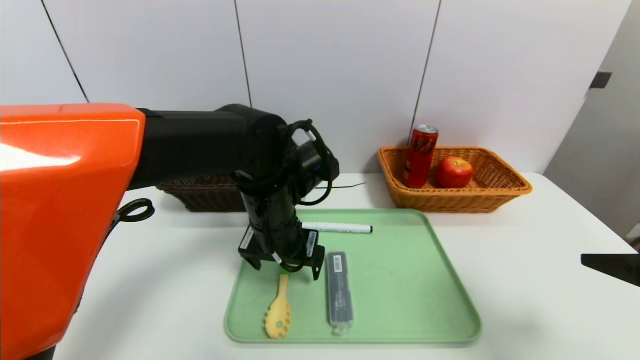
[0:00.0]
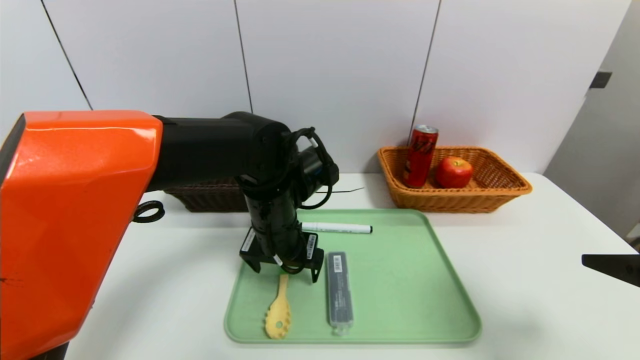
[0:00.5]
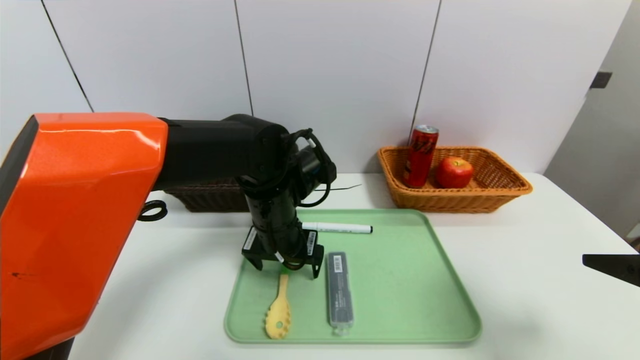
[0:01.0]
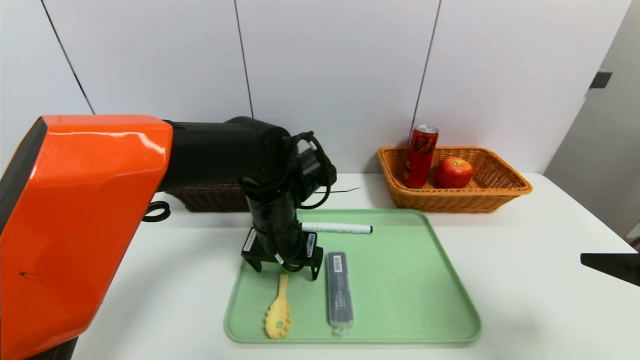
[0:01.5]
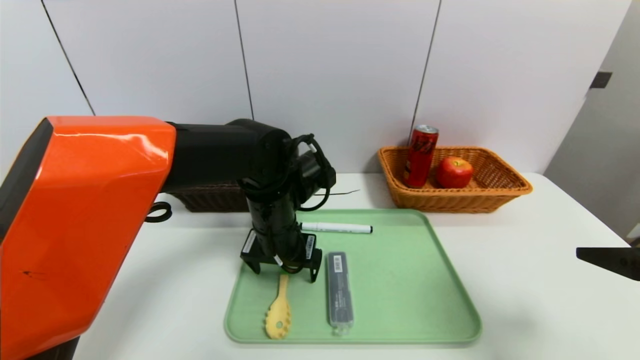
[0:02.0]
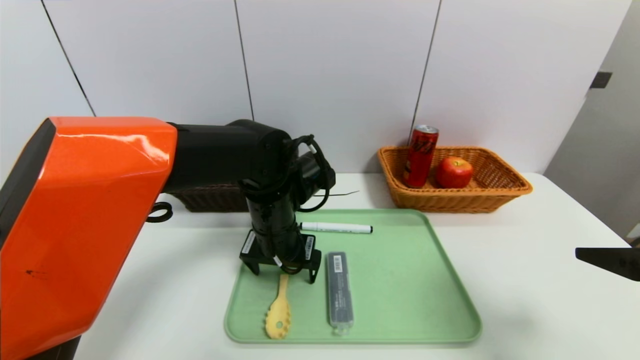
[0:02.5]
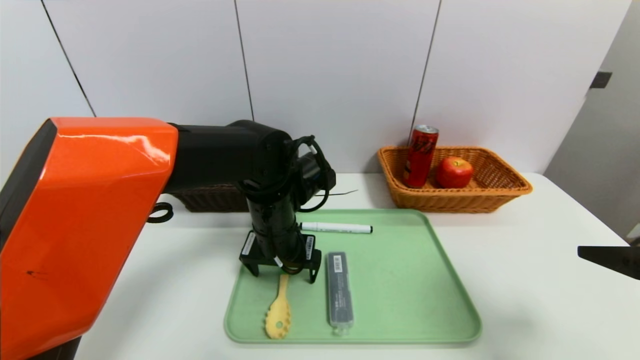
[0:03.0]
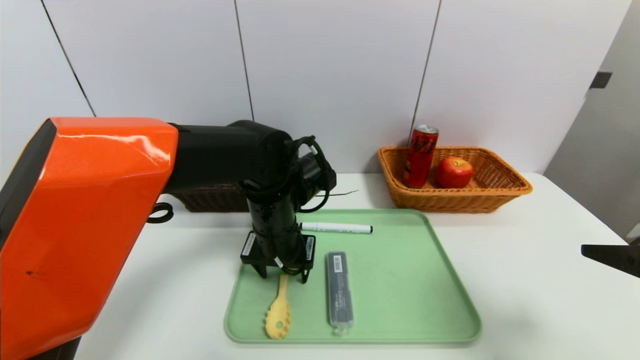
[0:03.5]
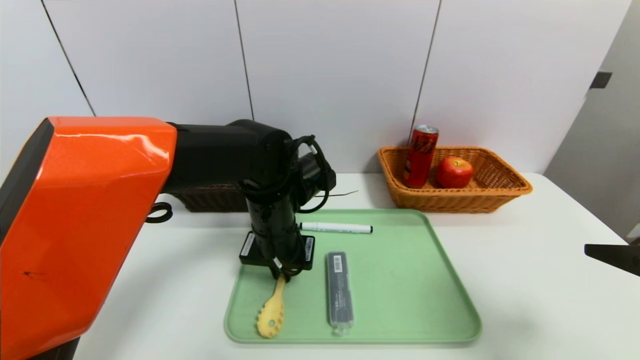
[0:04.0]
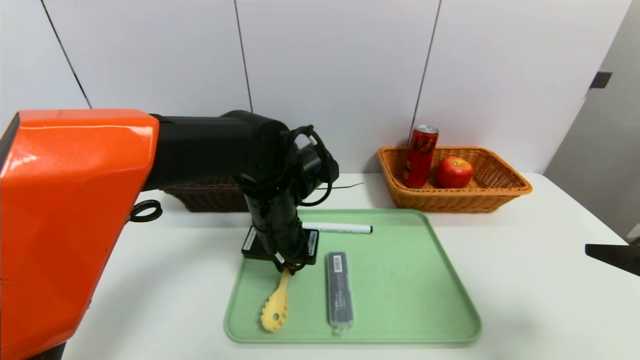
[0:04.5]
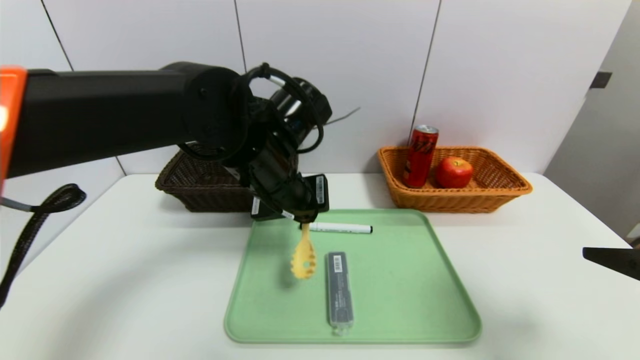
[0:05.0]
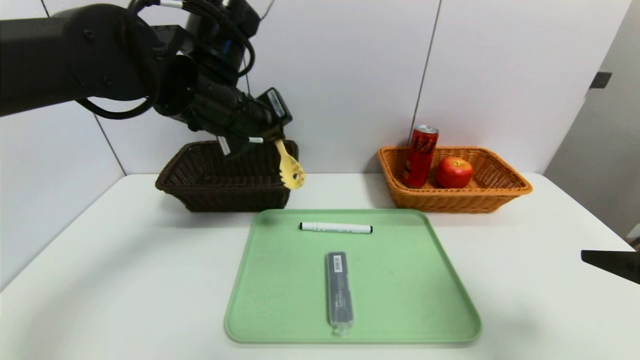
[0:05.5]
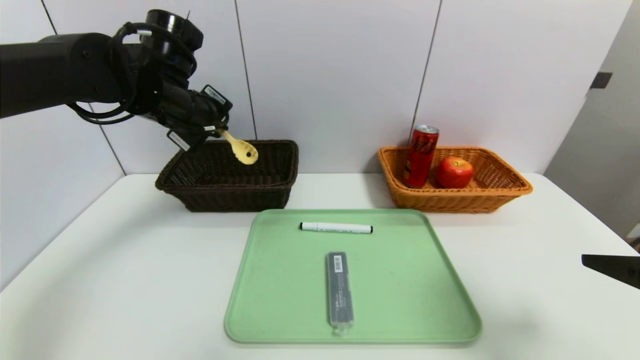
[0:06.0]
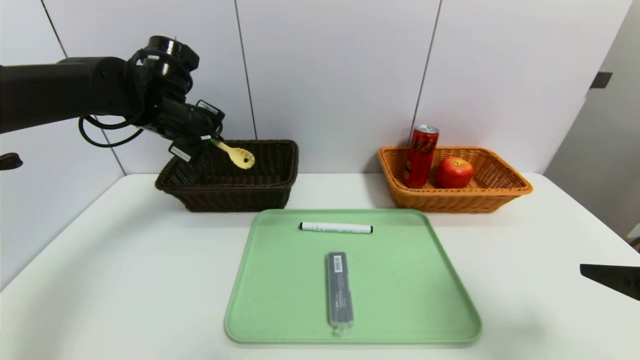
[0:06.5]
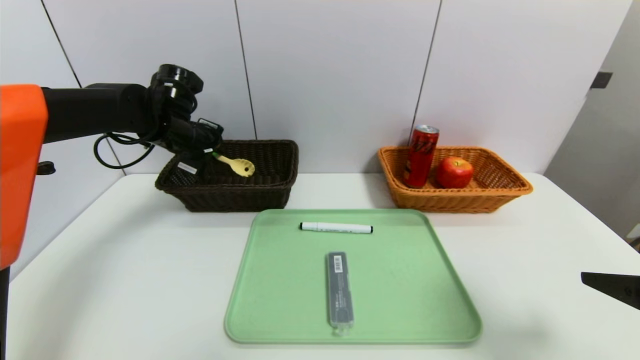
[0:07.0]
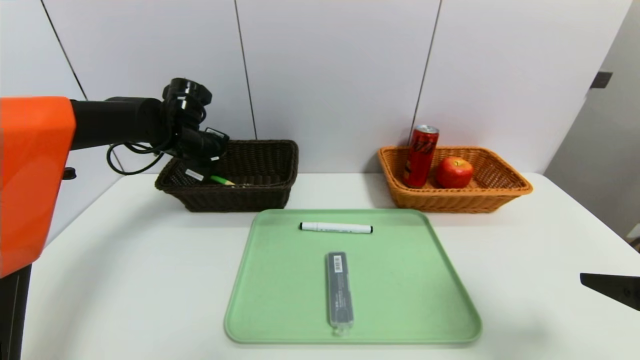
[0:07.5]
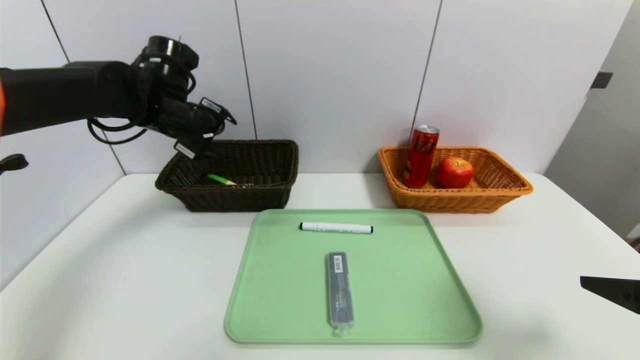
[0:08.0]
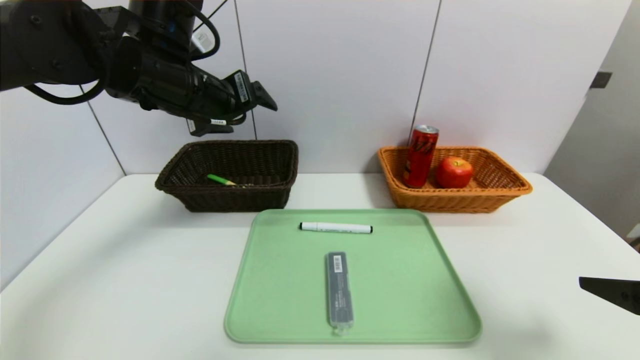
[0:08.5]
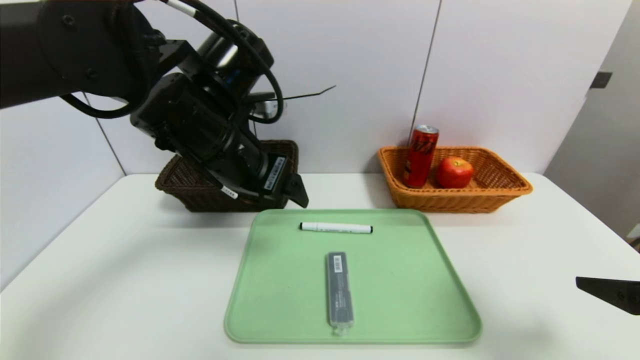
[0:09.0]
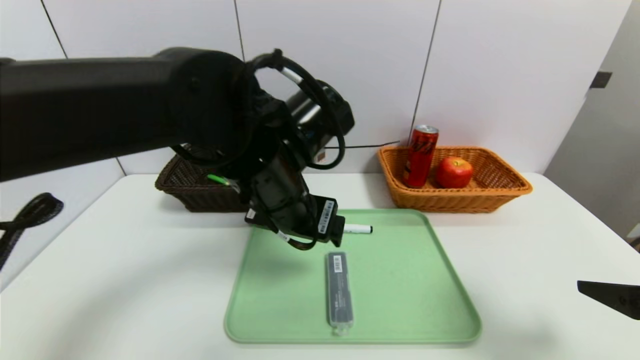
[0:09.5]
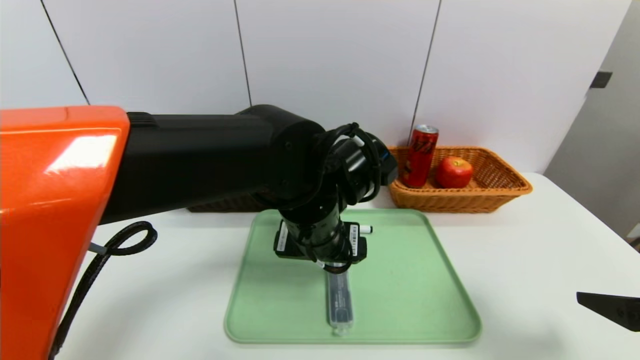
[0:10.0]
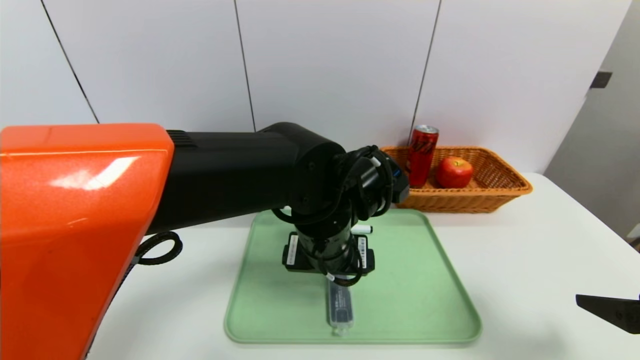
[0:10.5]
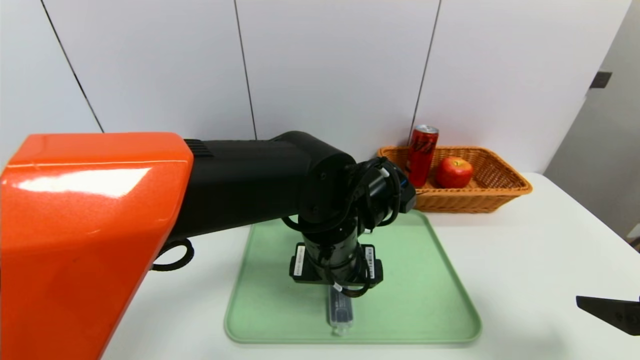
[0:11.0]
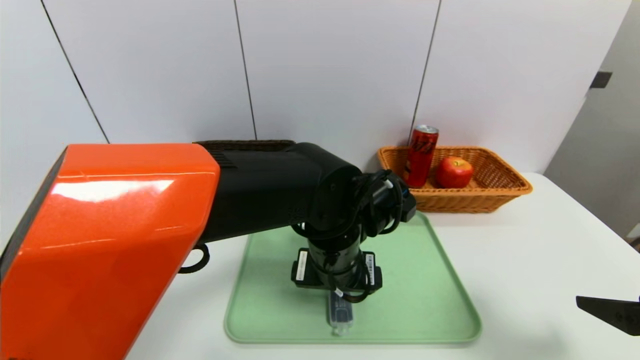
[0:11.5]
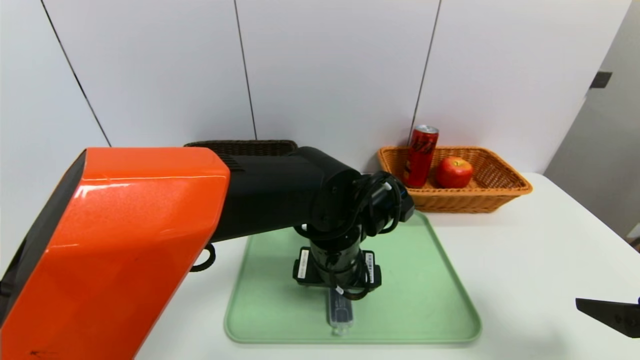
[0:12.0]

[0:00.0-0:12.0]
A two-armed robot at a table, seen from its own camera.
Task of the whole recording: place the food in the right basket with the right gripper, and place the non food items in the left basket with the left gripper.
Step, 0:00.0 to 0:08.0: Grasp the back scratcher and put it in the left basket.
0:00.0 to 0:02.0: The grippers stay close to where they were, moving slightly.
0:02.0 to 0:04.0: The left gripper closes.
0:04.0 to 0:06.0: The left gripper travels to the left, upward and forward by roughly 20 cm.
0:06.0 to 0:08.0: The left gripper goes downward and returns, roughly 10 cm each way, and opens up.
0:08.0 to 0:10.0: The left gripper shifts approximately 25 cm to the right and backward.
0:10.0 to 0:12.0: The left gripper changes place by roughly 5 cm.

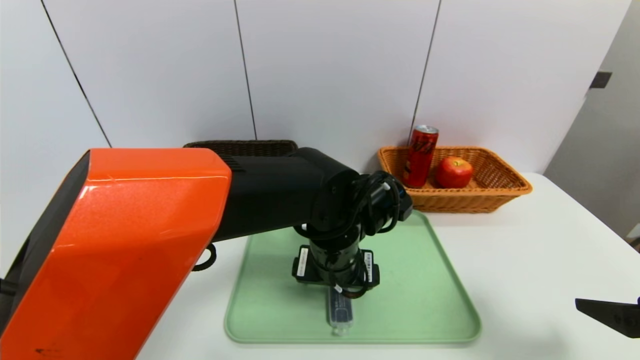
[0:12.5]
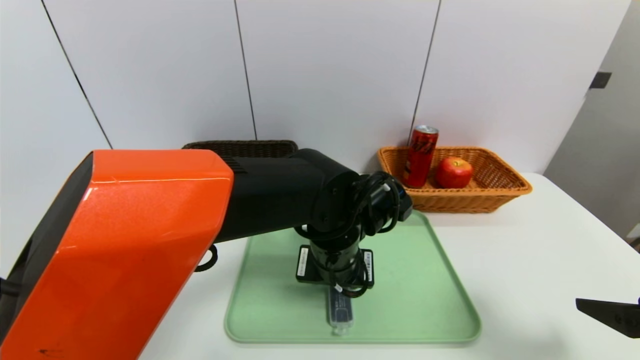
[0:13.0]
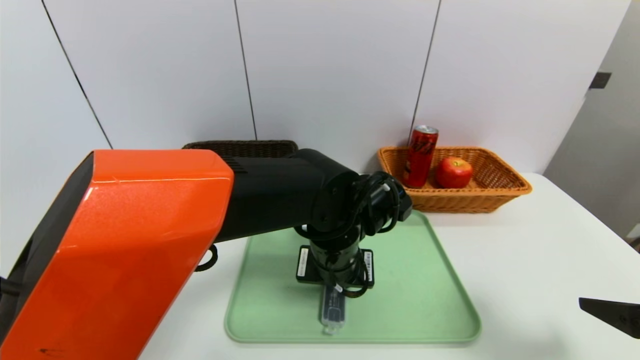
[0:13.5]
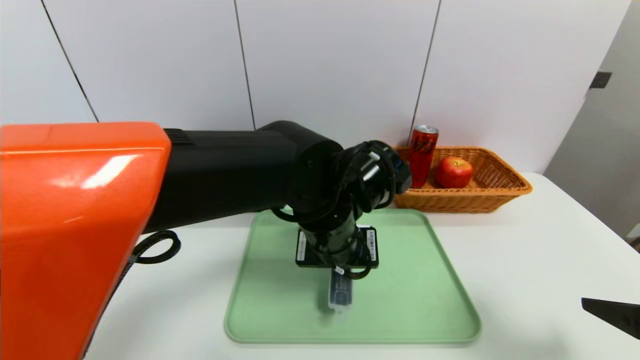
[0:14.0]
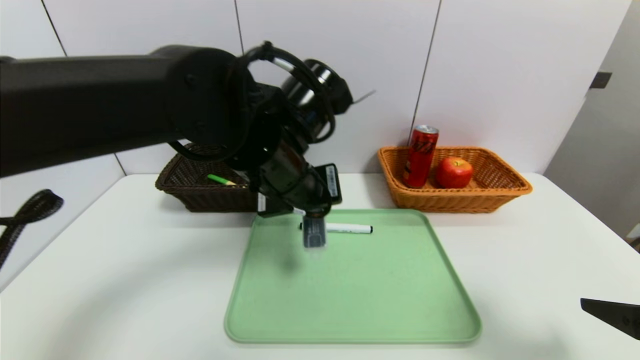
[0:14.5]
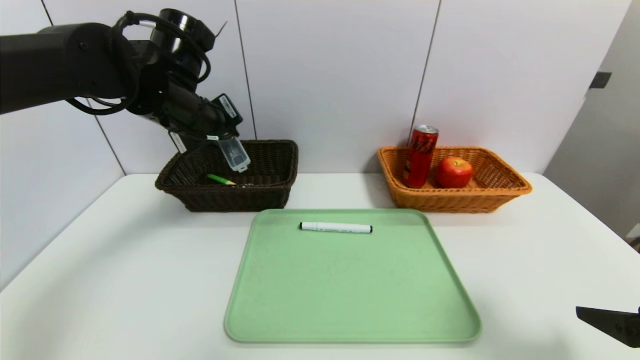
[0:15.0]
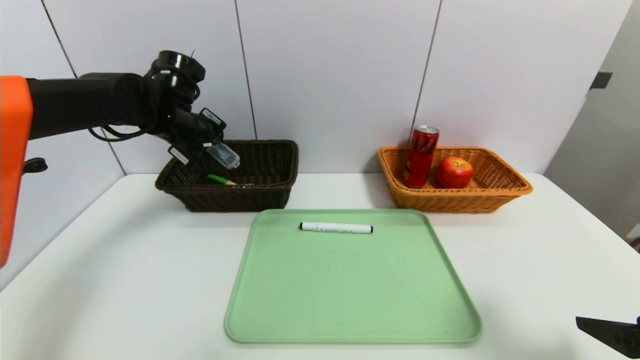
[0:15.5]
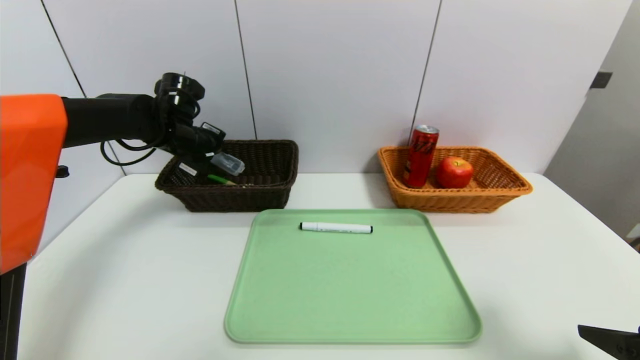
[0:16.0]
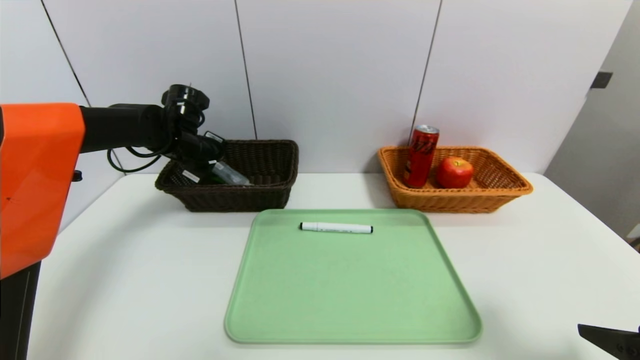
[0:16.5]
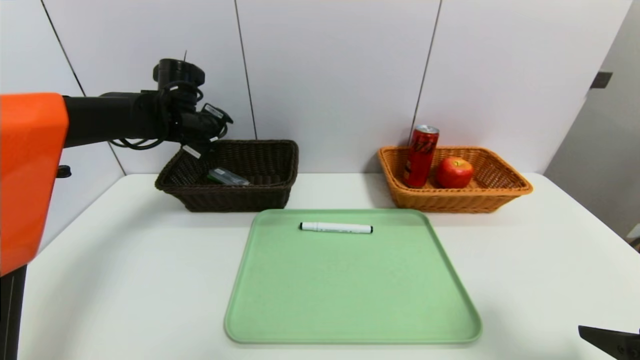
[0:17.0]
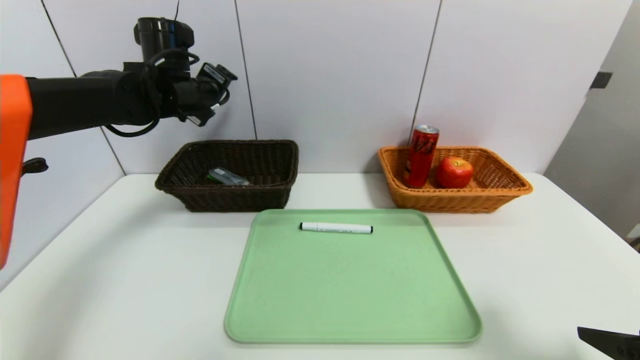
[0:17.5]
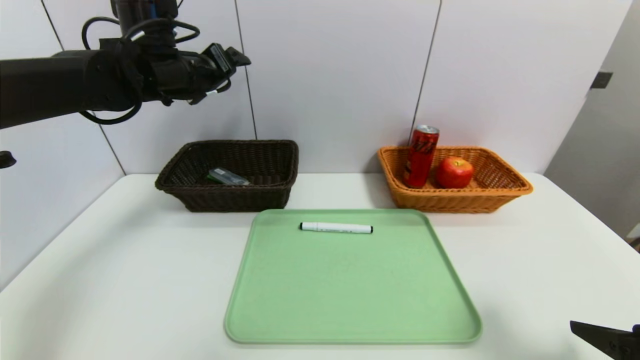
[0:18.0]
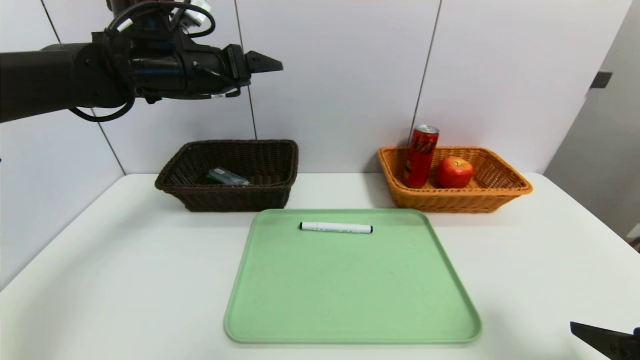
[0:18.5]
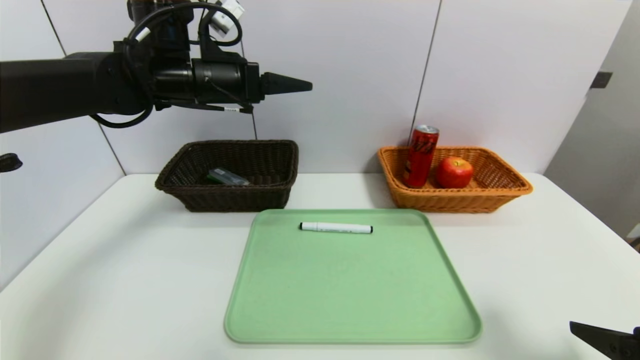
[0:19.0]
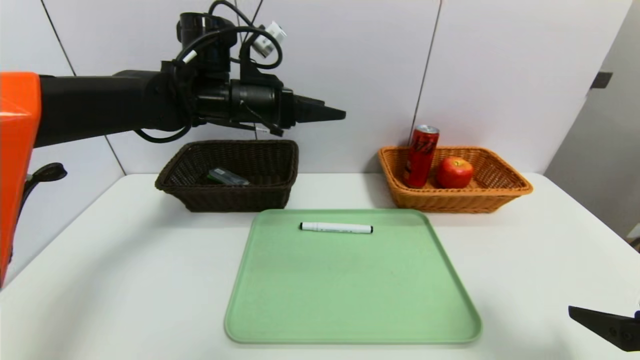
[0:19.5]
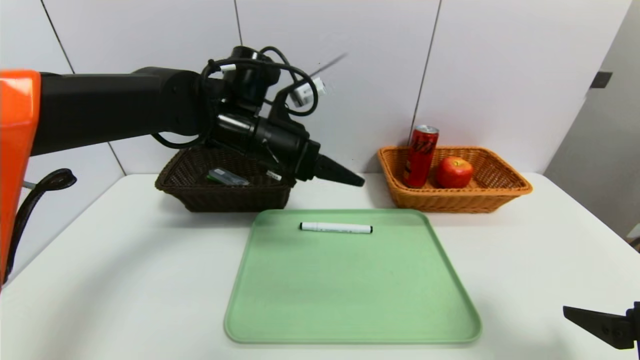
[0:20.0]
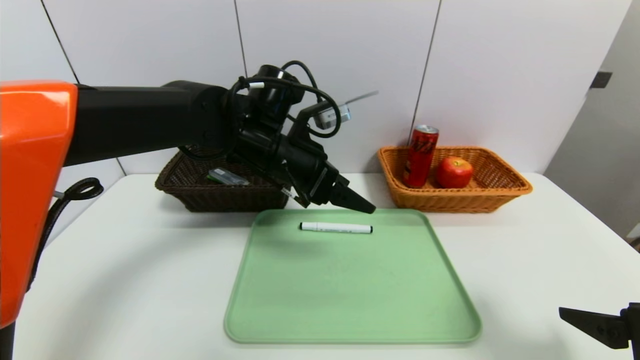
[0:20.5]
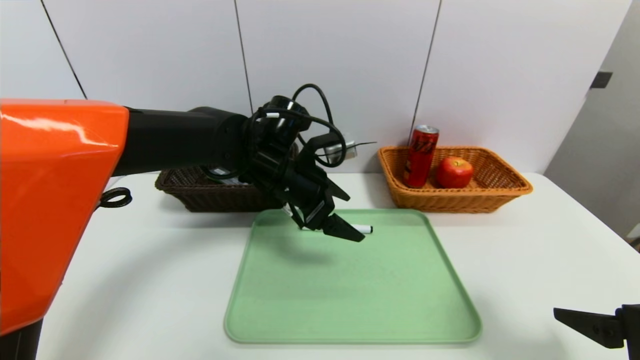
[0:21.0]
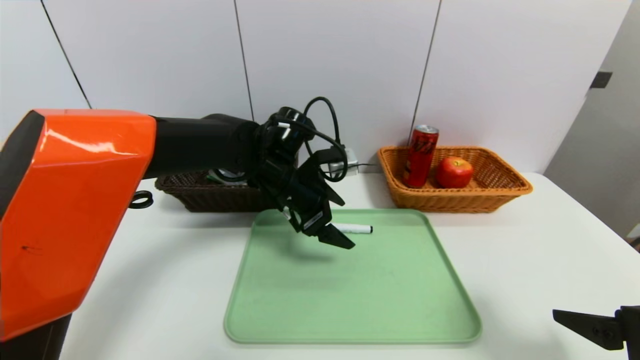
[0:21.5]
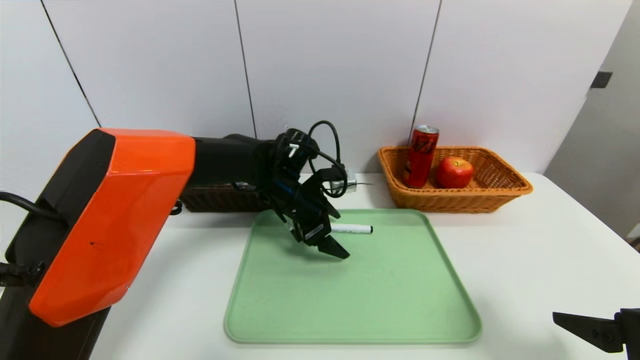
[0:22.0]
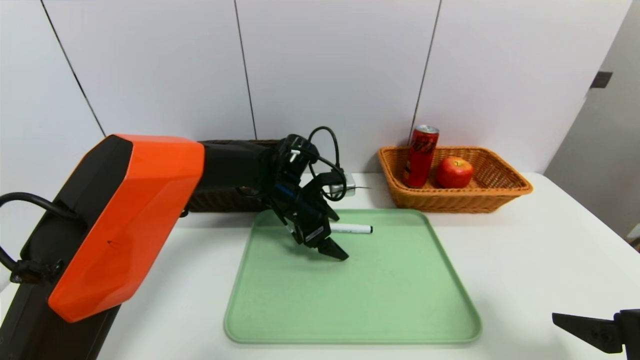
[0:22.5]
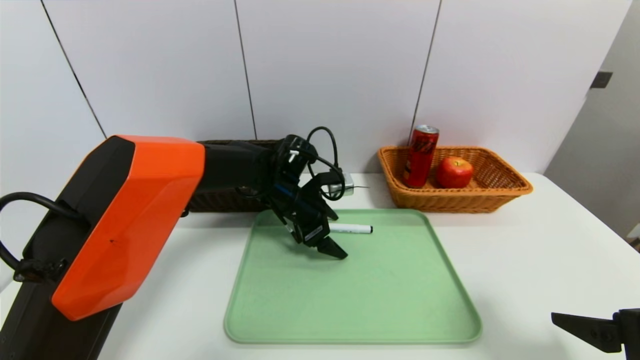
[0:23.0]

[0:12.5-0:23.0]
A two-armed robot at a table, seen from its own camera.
Task of the whole recording: place the food in the right basket with the right gripper, and place the non food items in the left basket with the left gripper.
Step, 0:12.5 to 0:16.5: Grasp the compass and put it in the left basket.
0:12.5 to 0:14.5: The left gripper shifts some 15 cm upward and to the left, and closes up.
0:14.5 to 0:16.5: The left gripper goes about 25 cm to the left and forward.
0:16.5 to 0:19.0: The left gripper is displaced upward, to the right and backward by roughly 15 cm, and opens up.
0:19.0 to 0:21.0: The left gripper is displaced downward and to the right by some 15 cm.
0:21.0 to 0:23.0: The left gripper shifts roughly 5 cm downward.
